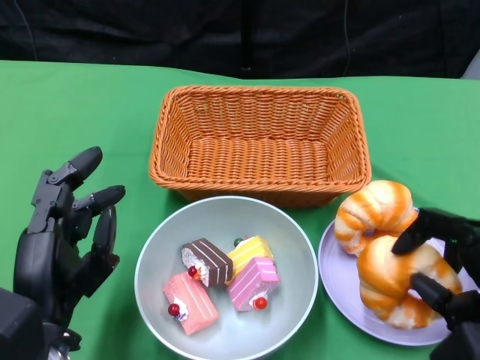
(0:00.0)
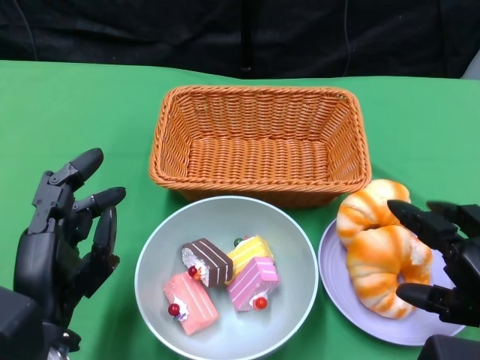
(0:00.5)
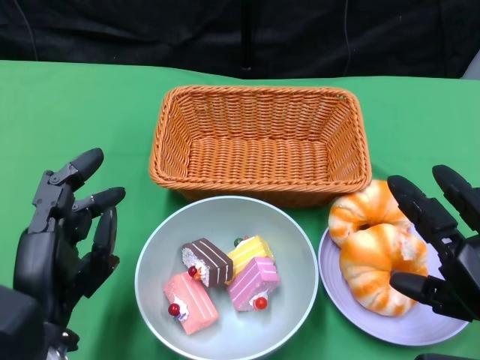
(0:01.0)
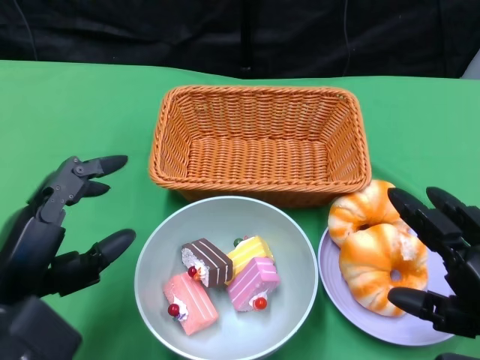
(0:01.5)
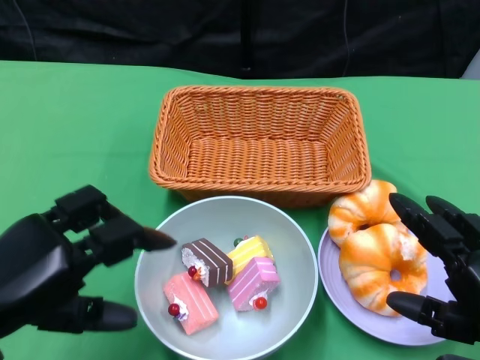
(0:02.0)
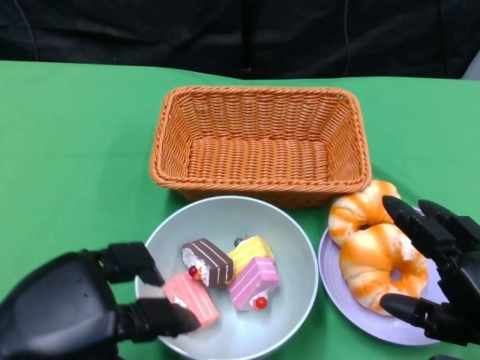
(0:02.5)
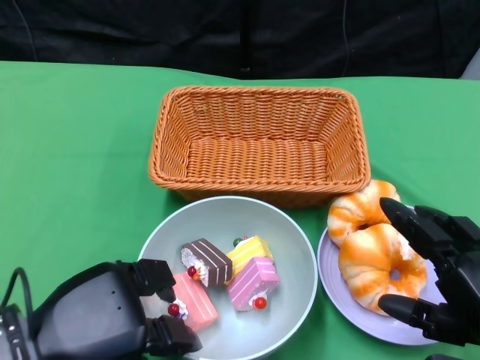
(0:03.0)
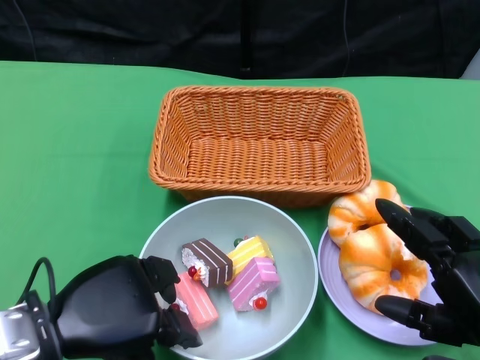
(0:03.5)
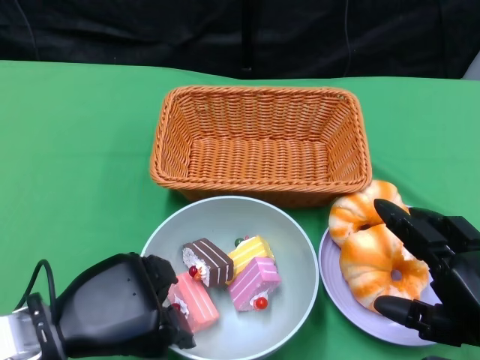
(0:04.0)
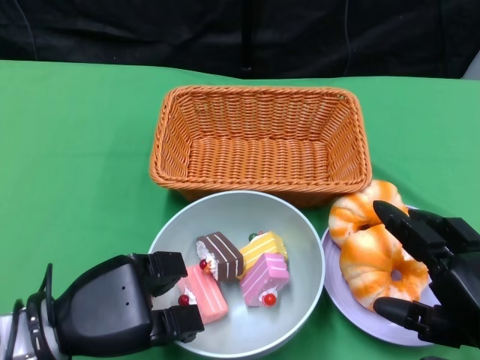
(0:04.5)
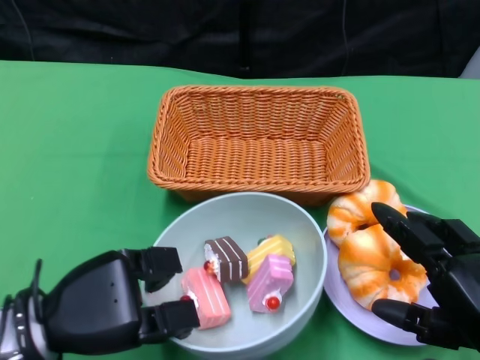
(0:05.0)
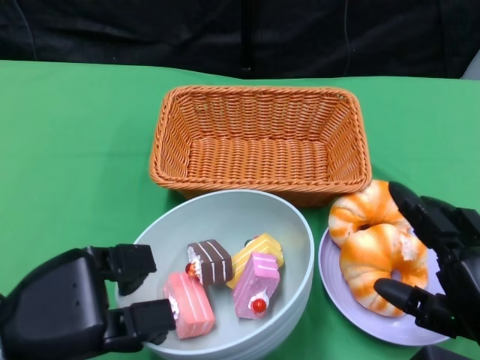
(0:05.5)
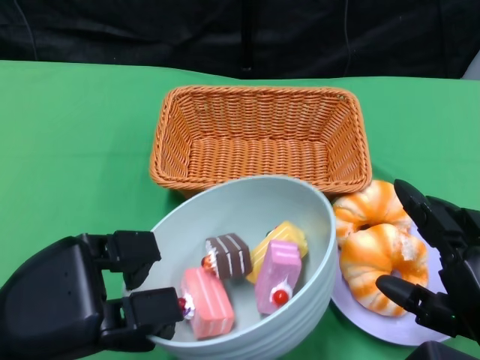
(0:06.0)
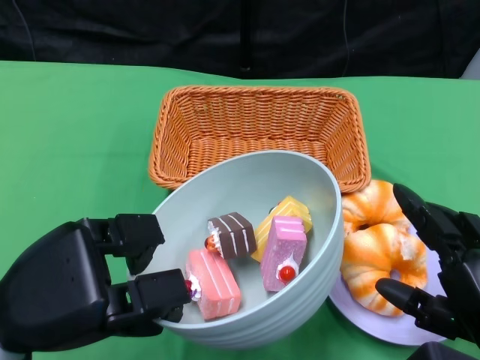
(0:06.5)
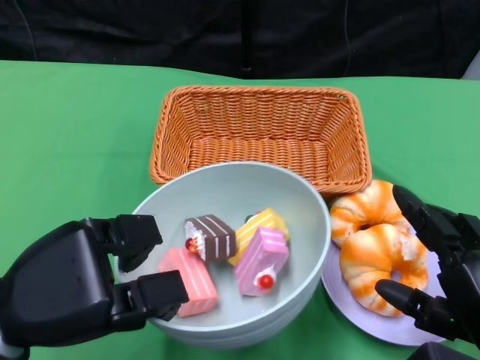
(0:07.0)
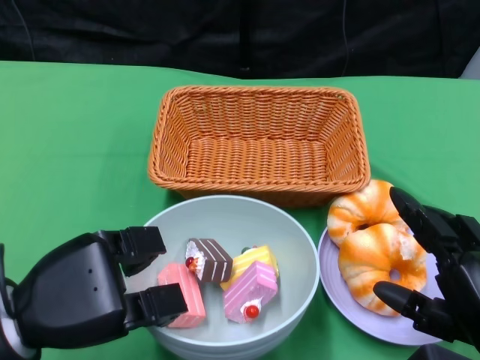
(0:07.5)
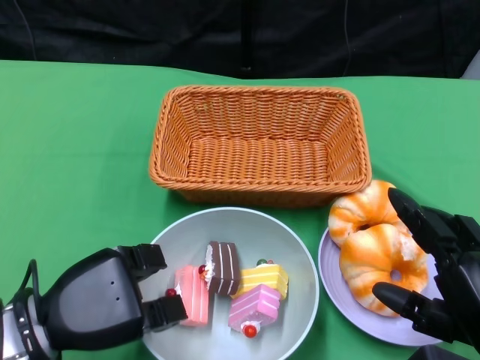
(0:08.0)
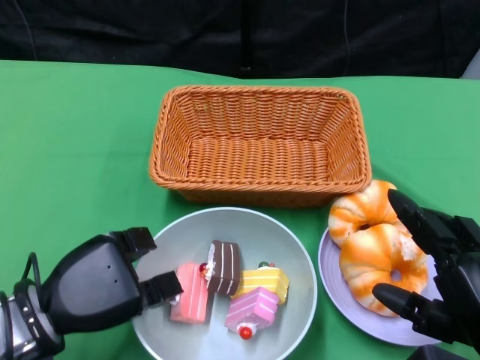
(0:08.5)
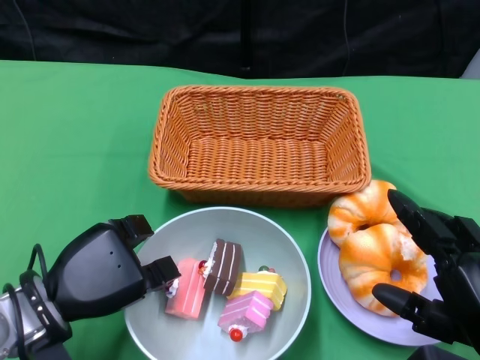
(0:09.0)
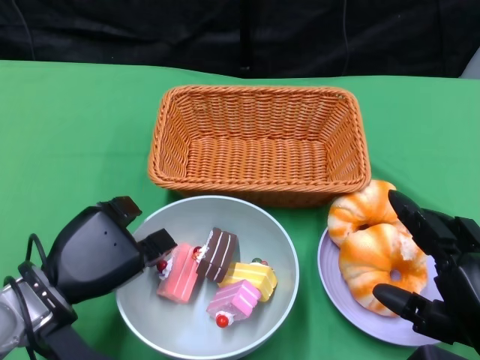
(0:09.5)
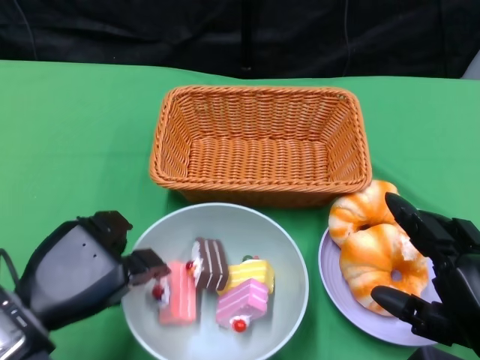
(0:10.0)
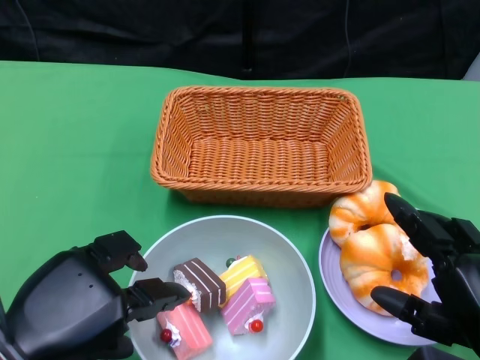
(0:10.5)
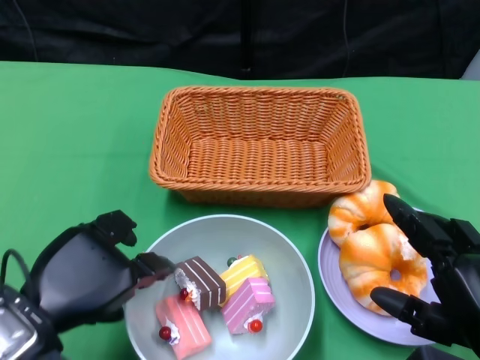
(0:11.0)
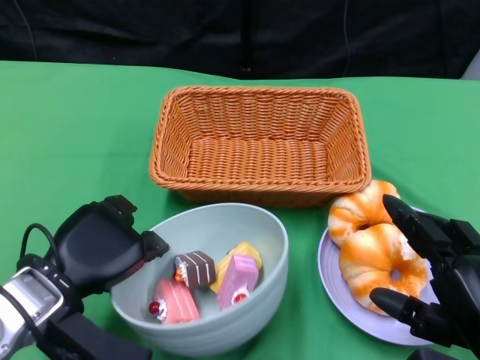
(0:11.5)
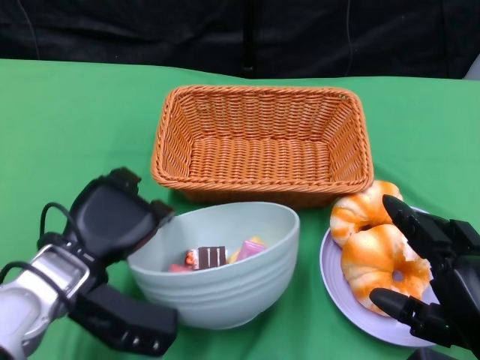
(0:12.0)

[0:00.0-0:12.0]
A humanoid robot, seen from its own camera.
0:00.0 to 0:02.0: The left hand is displaced to the left and upward by approximately 10 cm.
0:02.0 to 0:04.0: The left hand moves approximately 5 cm.
0:06.0 to 0:08.0: The left hand travels downward by some 5 cm.
0:10.0 to 0:12.0: The left hand shifts about 5 cm forward.

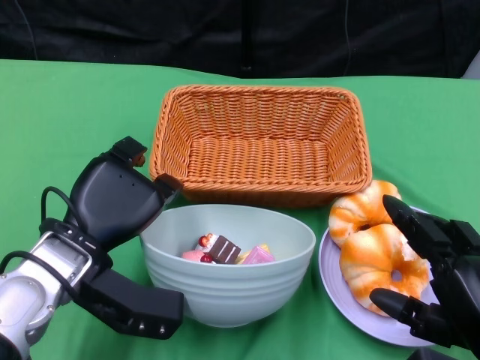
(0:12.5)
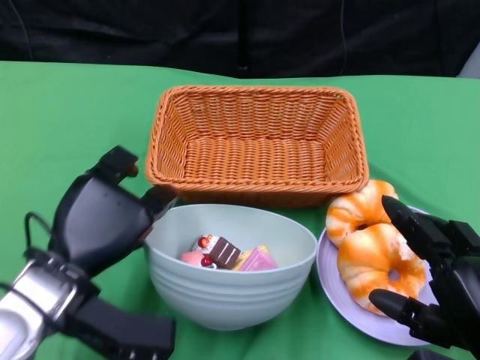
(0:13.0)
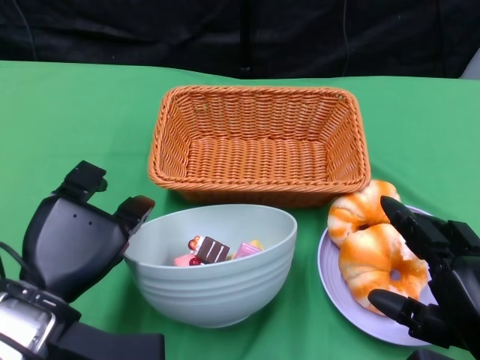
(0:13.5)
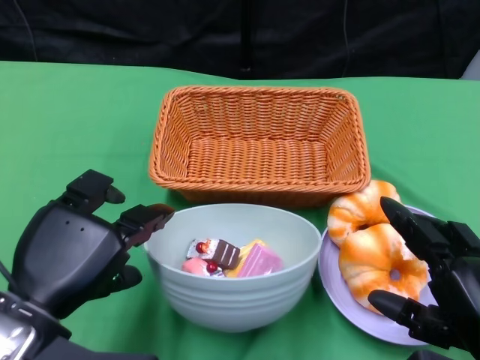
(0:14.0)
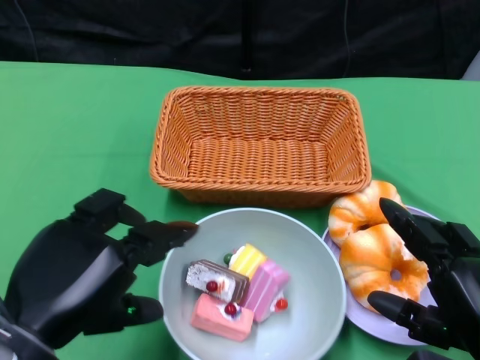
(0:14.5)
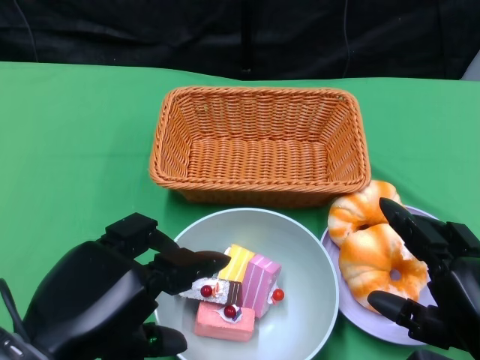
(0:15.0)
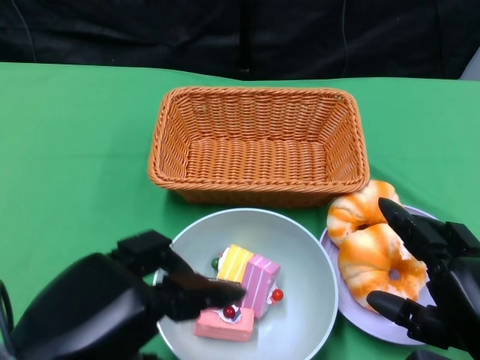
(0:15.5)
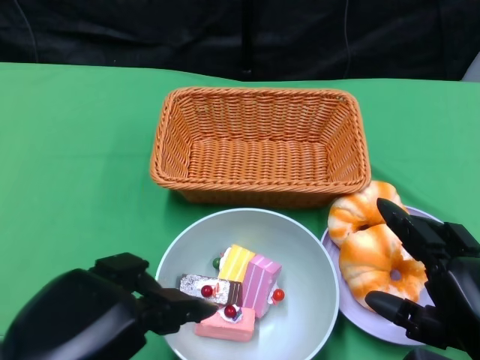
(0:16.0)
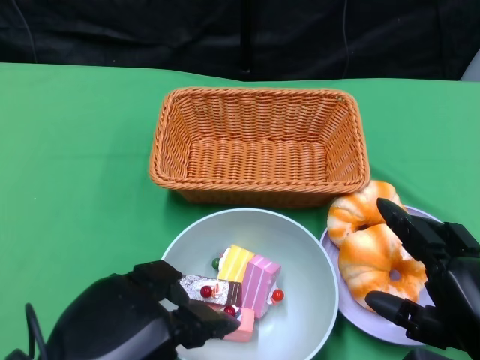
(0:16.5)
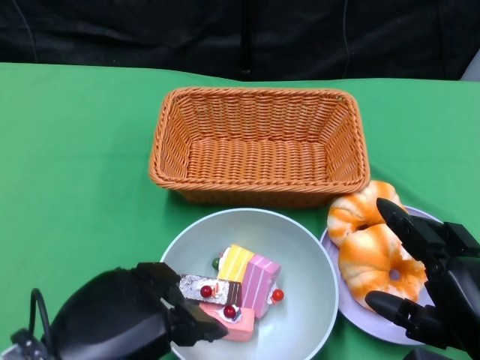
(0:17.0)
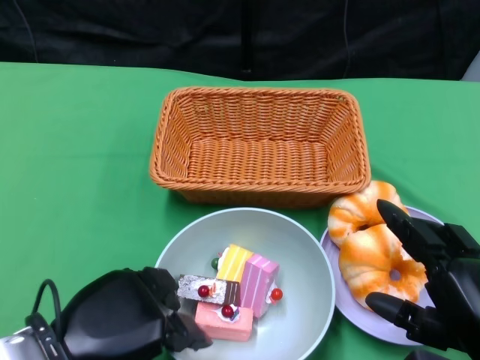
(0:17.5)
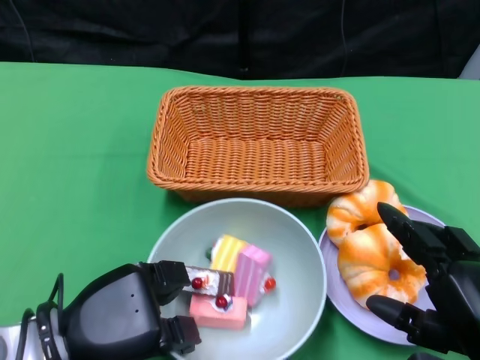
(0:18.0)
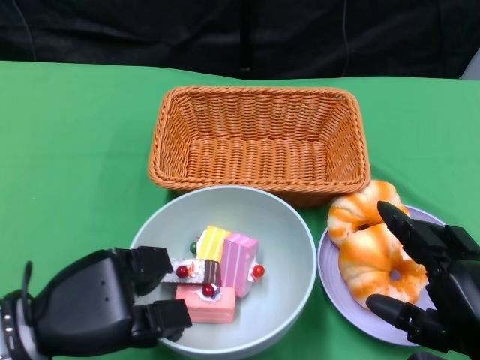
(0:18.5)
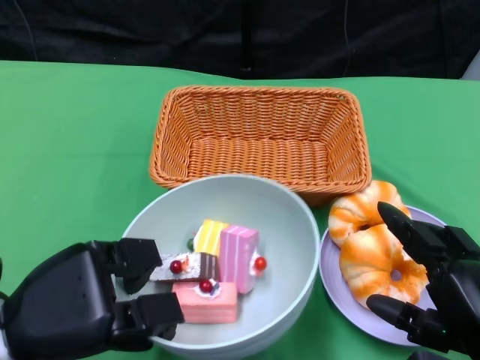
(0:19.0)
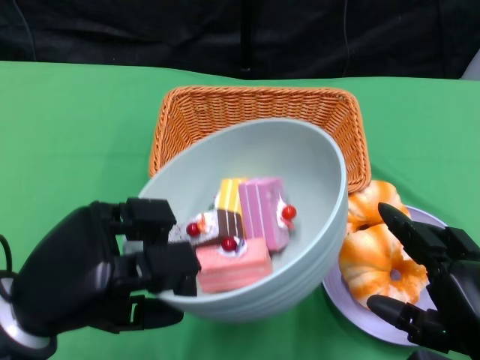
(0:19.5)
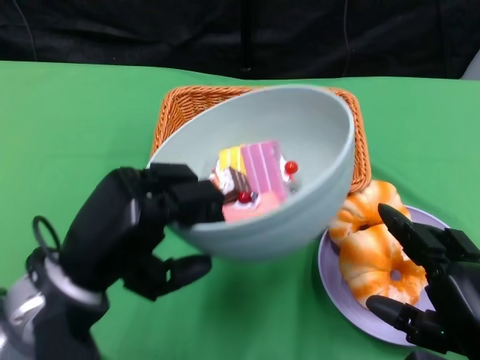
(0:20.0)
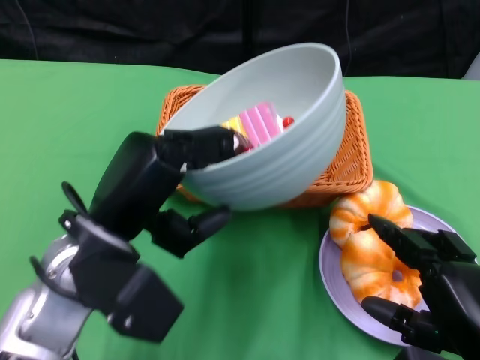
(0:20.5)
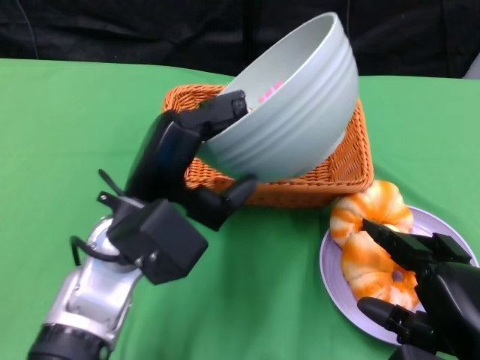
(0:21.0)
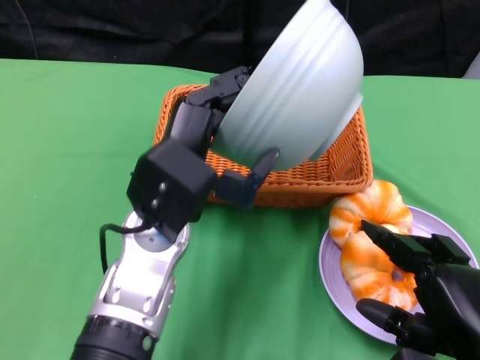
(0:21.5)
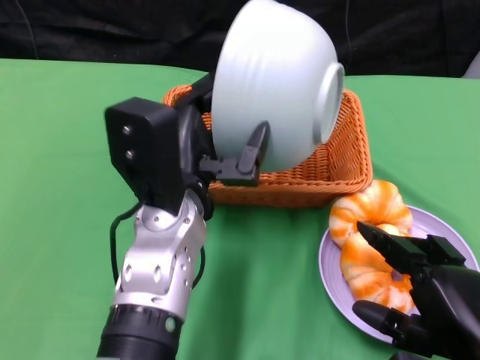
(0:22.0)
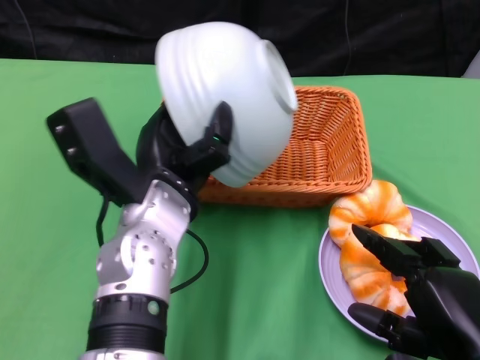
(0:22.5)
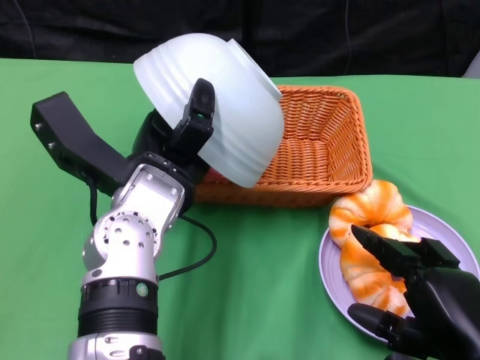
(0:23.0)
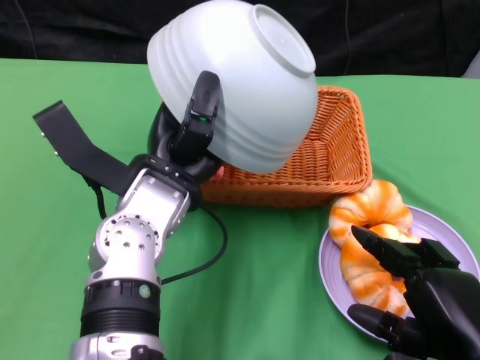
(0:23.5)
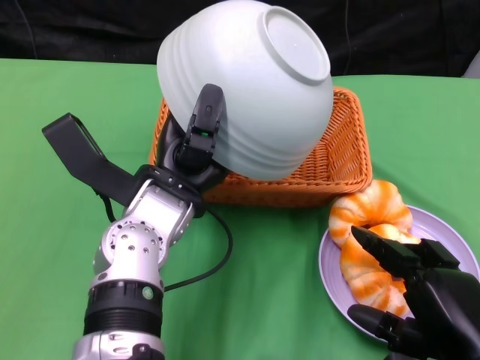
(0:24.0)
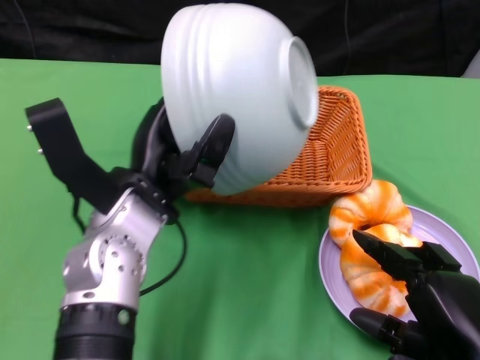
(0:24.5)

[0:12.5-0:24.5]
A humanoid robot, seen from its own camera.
Step, 0:12.5 to 0:17.5: Grasp the bowl with the left gripper.
Step, 0:18.0 to 0:23.0: Pour the cake into the basket with the left gripper.
0:12.5 to 0:14.5: The left hand is displaced backward and upward by roughly 10 cm.
0:14.5 to 0:16.5: The hands make only small movements.
0:16.5 to 0:18.5: The left hand heads forward and downward, covering about 10 cm.
0:18.5 to 0:20.5: The left hand is displaced to the right and upward by some 10 cm.
0:20.5 to 0:22.5: The left hand is displaced to the right by approximately 5 cm.

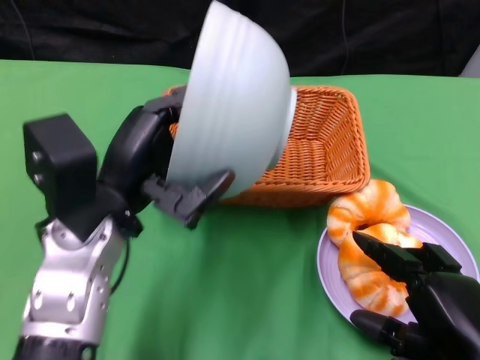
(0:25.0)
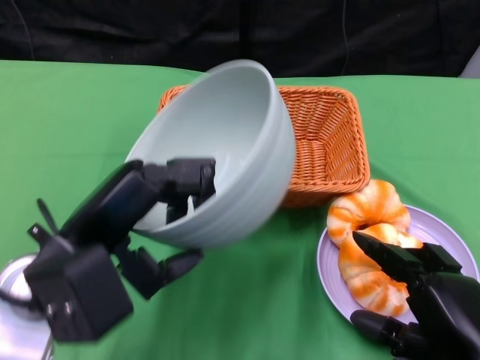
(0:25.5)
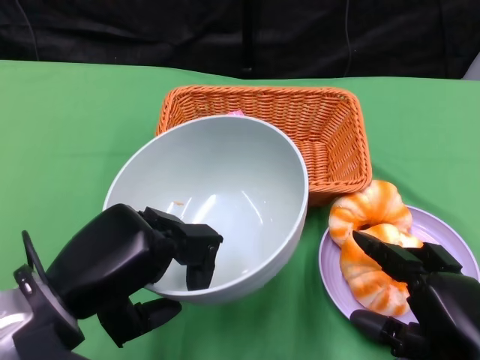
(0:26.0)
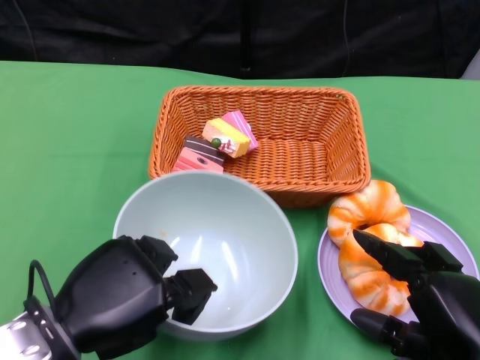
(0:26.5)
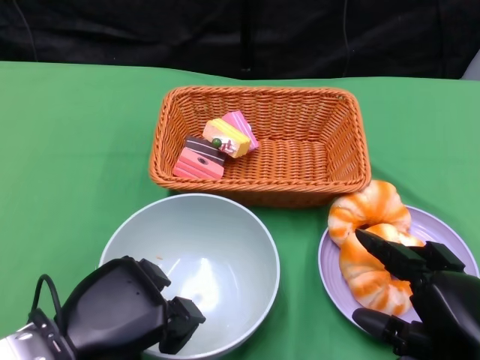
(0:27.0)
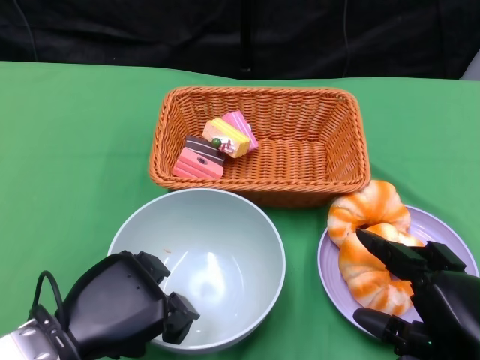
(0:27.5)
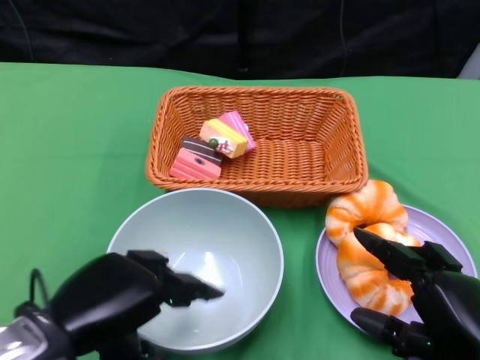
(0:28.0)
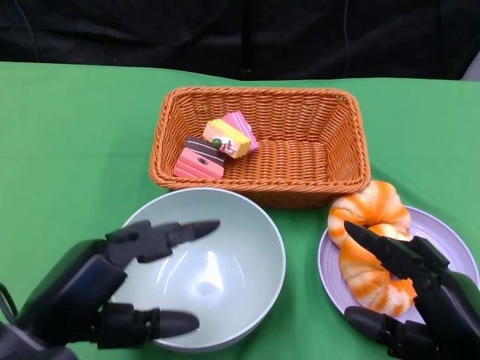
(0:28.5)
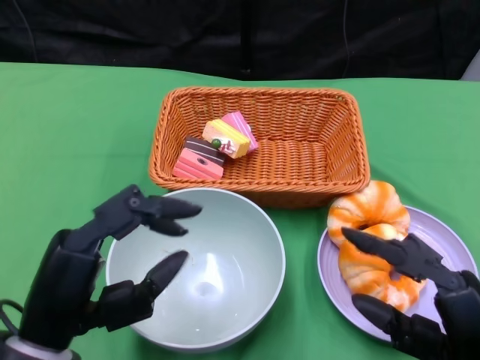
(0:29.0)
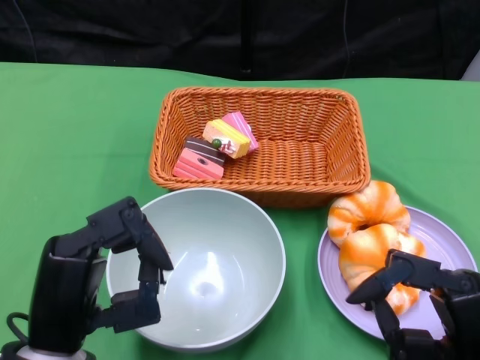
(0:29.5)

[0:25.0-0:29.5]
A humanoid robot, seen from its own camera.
Step, 0:25.0 to 0:27.5: Place the bowl on the table with the left gripper.
0:25.0 to 0:27.0: The left hand moves backward and downward, roughly 10 cm.
